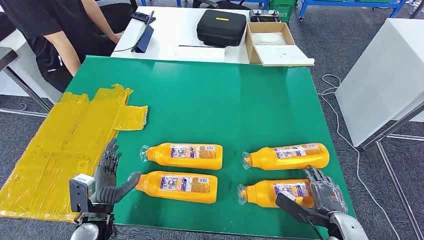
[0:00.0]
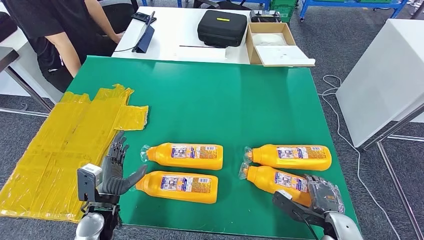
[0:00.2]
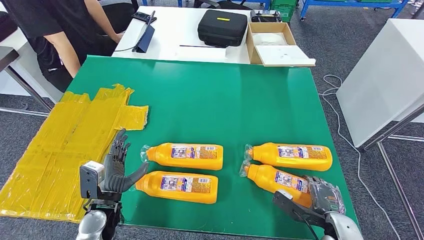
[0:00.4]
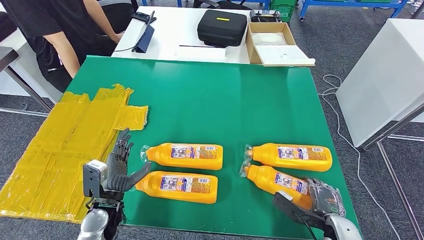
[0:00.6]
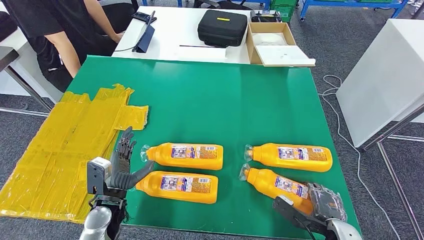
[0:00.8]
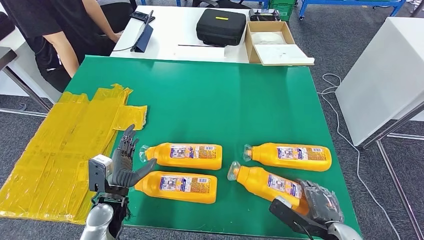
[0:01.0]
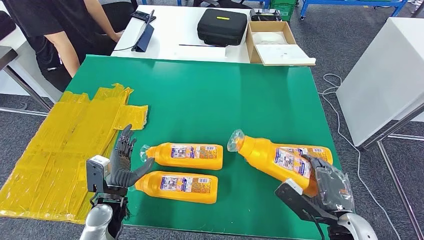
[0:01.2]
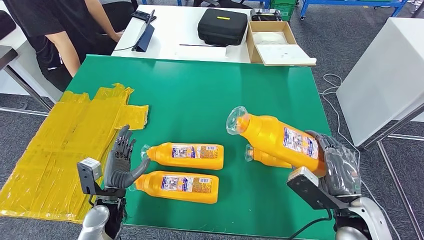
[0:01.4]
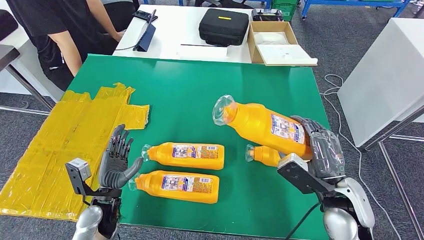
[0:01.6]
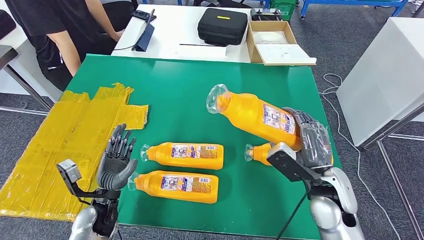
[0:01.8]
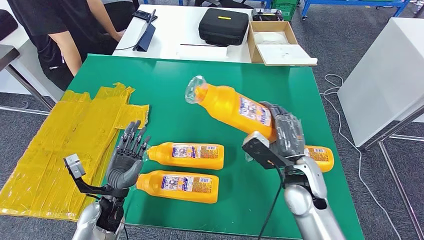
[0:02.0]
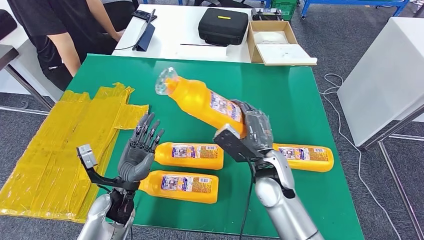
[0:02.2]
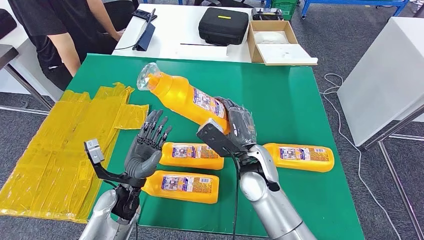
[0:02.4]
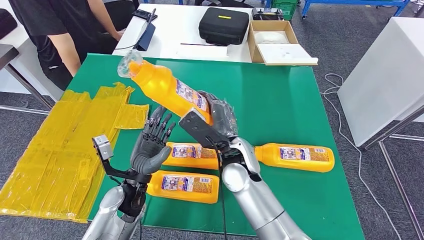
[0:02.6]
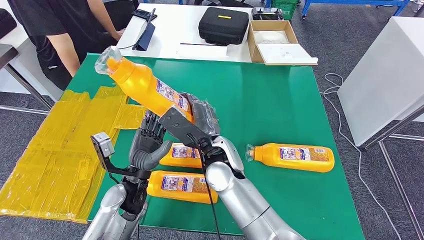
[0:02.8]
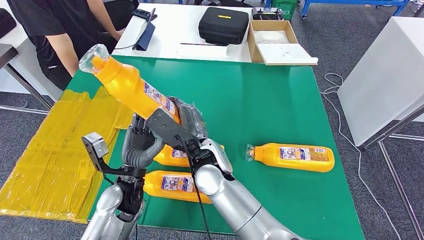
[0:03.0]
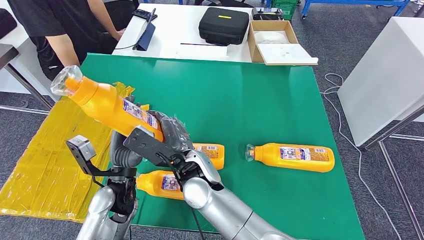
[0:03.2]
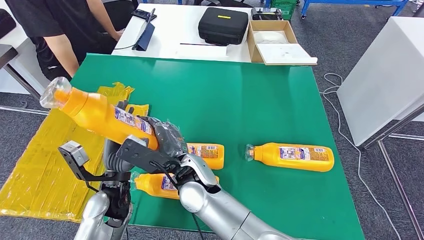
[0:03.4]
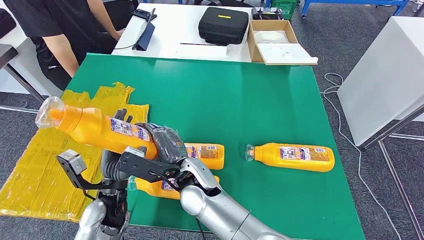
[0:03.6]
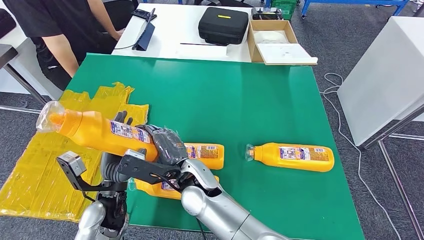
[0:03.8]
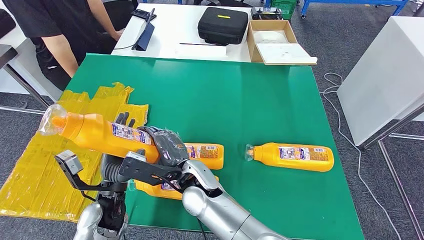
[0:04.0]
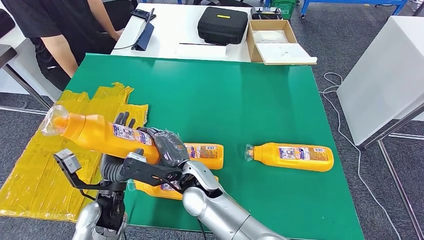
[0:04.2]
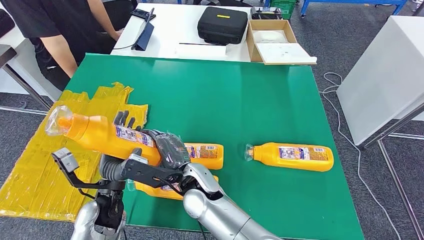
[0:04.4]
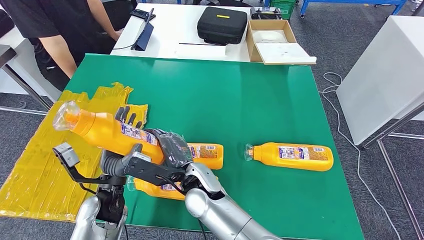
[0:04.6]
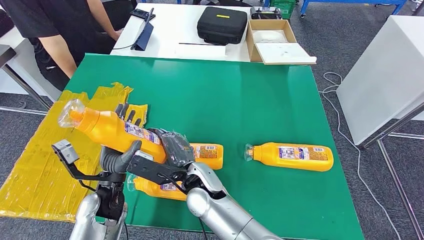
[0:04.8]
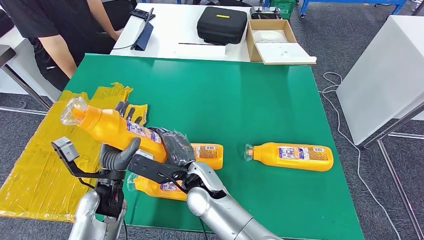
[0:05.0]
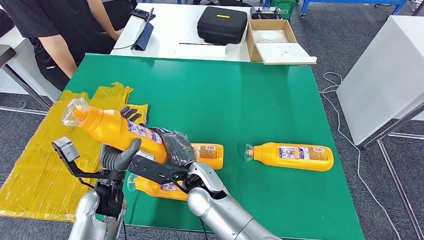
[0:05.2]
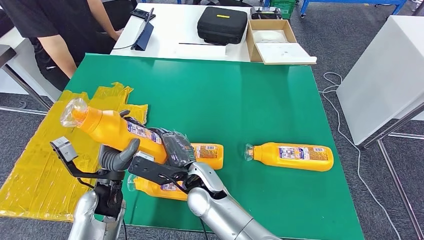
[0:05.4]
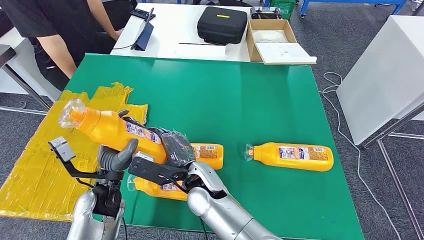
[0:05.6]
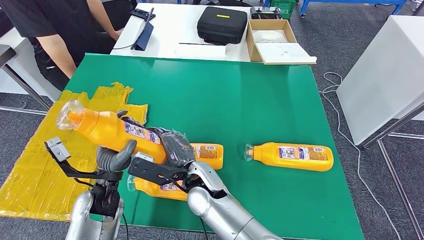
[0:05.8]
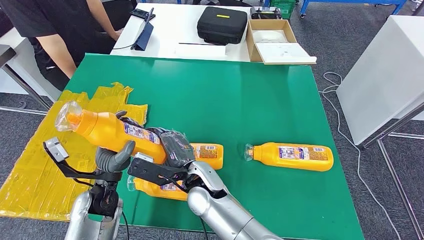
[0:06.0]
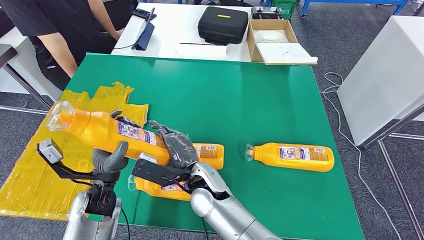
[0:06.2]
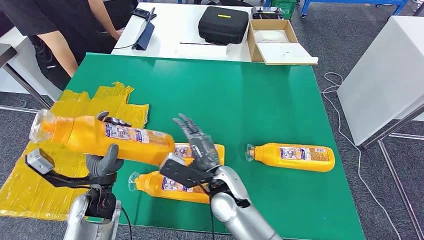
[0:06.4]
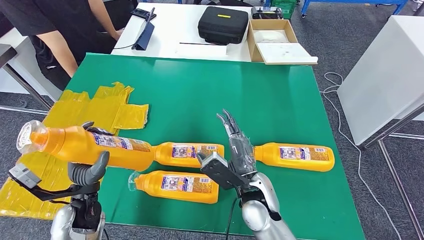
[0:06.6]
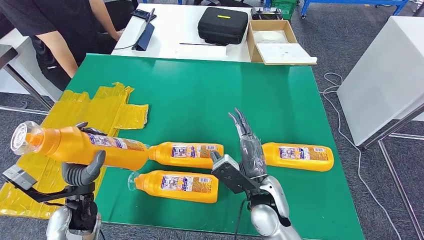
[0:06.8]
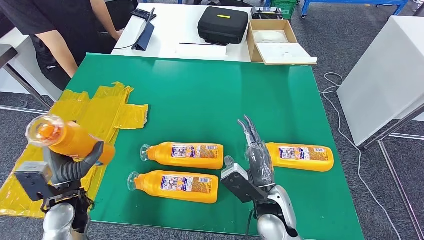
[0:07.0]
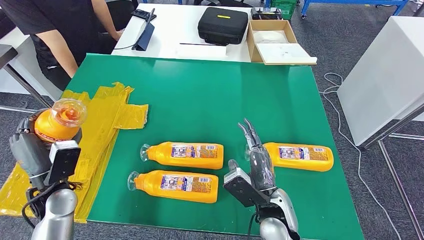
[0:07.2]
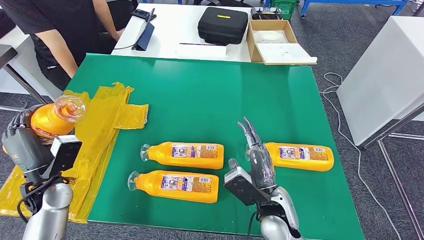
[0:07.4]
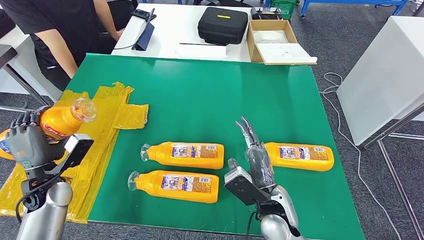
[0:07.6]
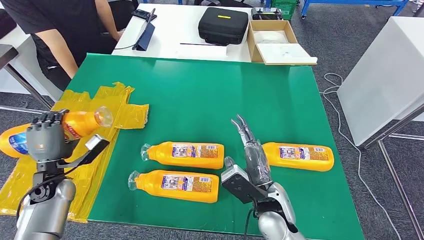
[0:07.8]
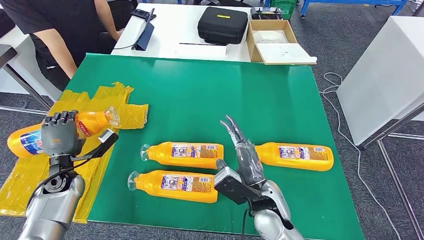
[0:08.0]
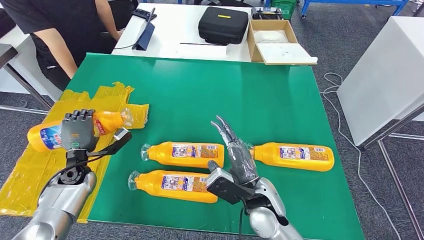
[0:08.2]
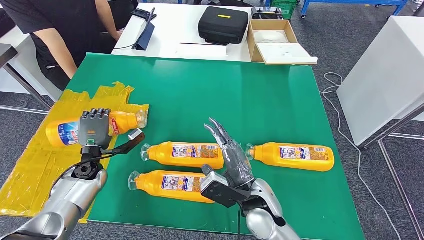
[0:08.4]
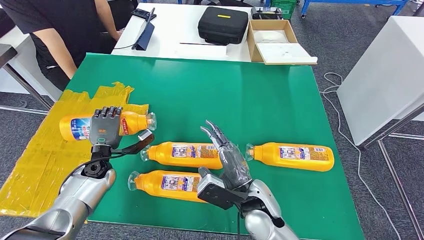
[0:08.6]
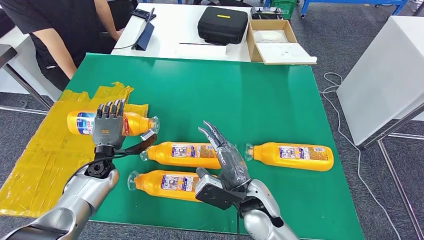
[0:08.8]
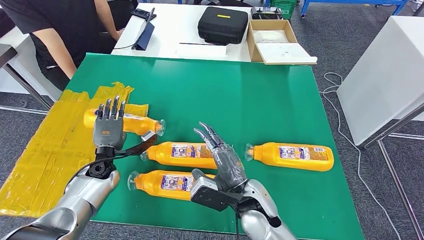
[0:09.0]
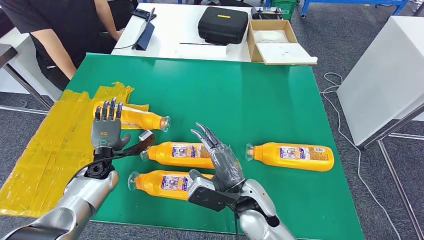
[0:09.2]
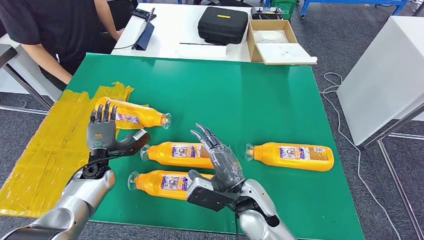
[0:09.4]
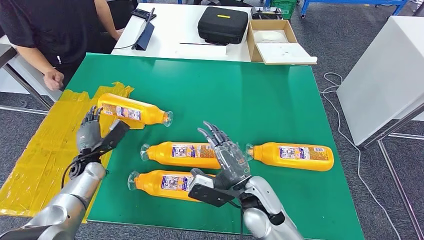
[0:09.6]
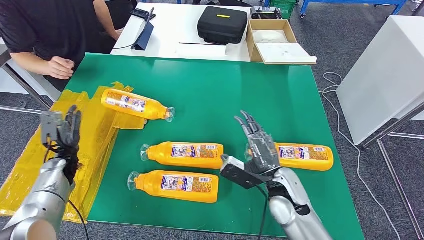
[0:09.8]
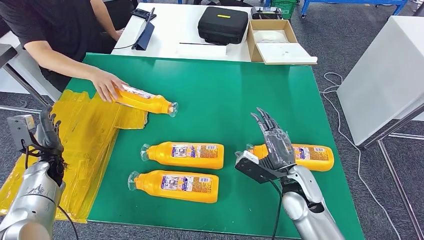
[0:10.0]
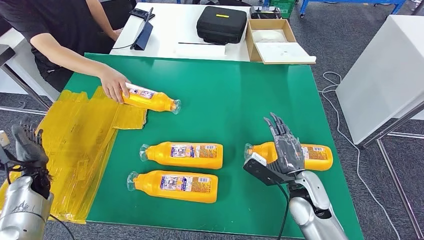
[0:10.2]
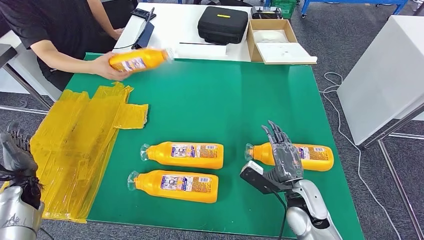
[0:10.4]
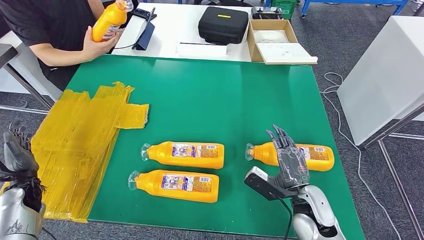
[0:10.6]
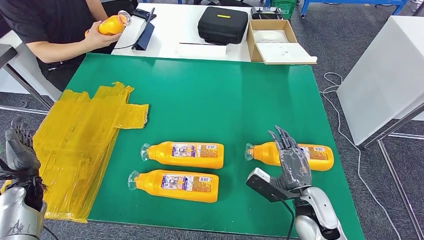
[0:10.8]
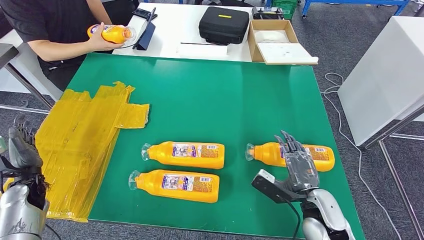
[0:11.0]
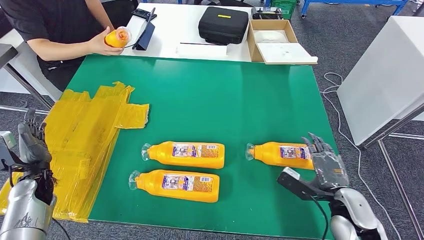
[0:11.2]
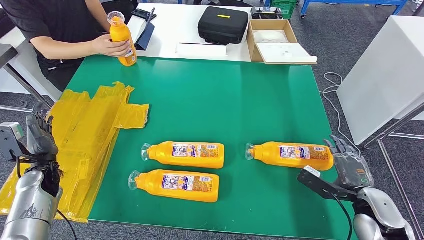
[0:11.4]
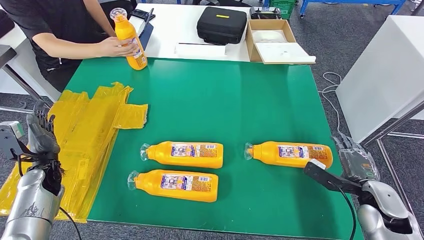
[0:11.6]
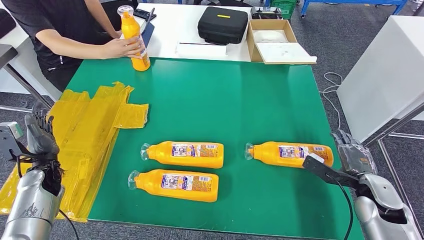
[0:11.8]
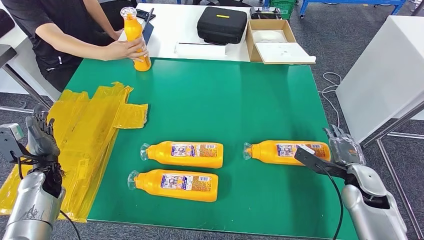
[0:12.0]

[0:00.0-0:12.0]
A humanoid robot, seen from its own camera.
Step, 0:00.0 to 0:03.8: Take the fast-moving consumer goods bottle from the table.
Step, 0:04.0 to 0:08.8: Flip the fast-moving consumer goods bottle to the front side.
0:04.4 to 0:06.0: The hands make only small movements.
0:07.6 to 0:09.0: The left hand heads to the right, forward and downward, covering some 15 cm.

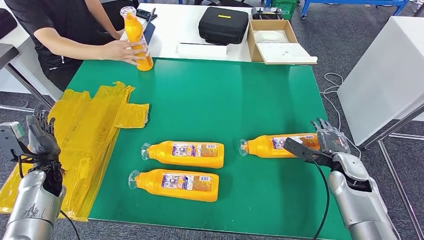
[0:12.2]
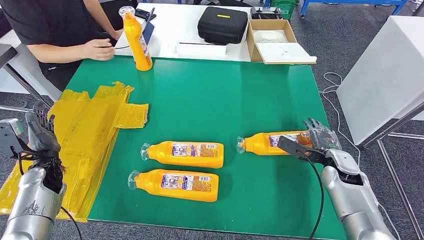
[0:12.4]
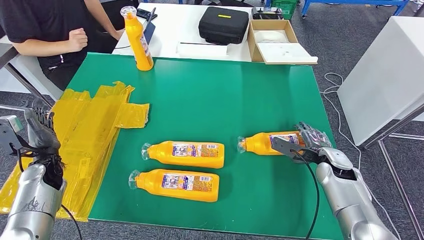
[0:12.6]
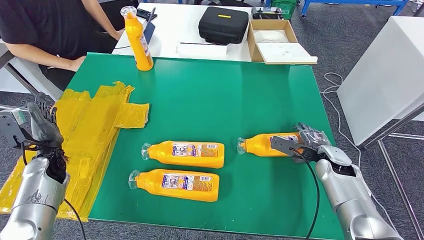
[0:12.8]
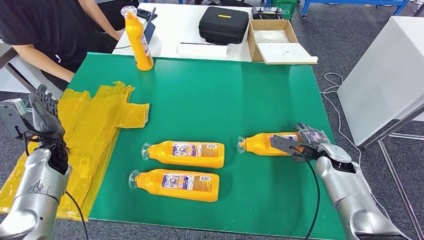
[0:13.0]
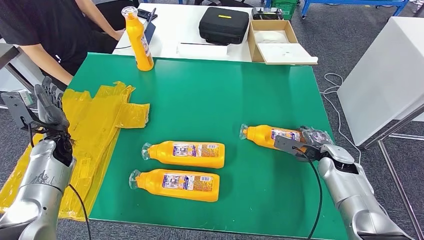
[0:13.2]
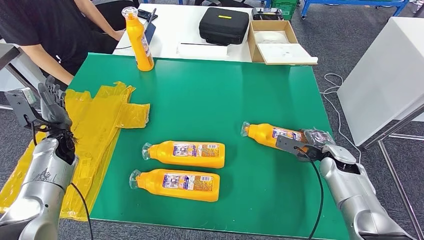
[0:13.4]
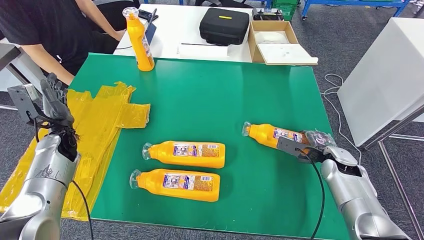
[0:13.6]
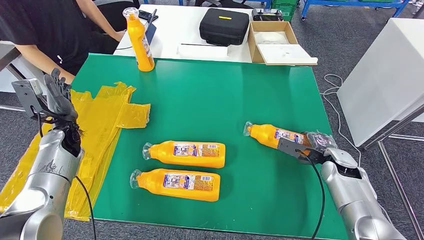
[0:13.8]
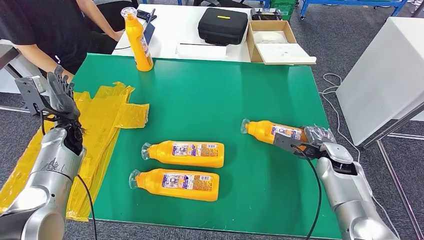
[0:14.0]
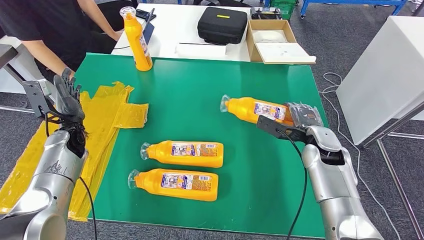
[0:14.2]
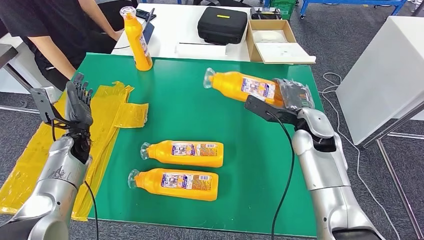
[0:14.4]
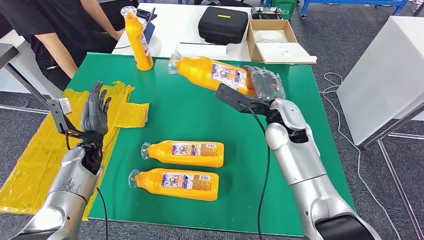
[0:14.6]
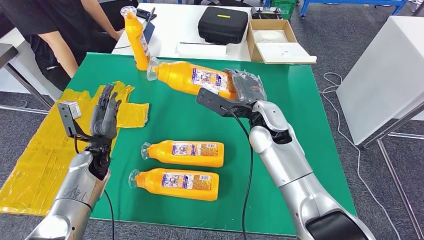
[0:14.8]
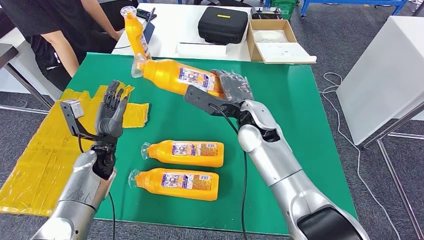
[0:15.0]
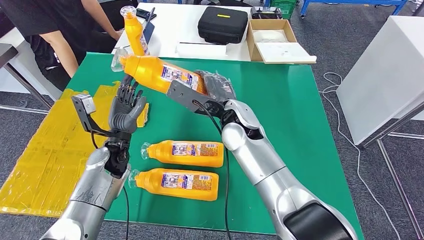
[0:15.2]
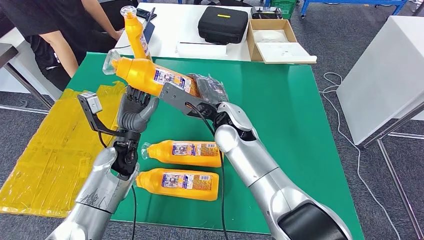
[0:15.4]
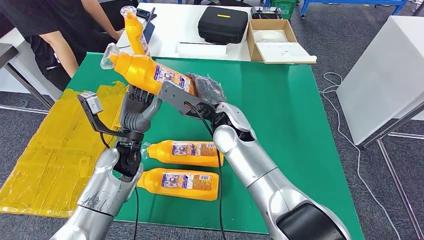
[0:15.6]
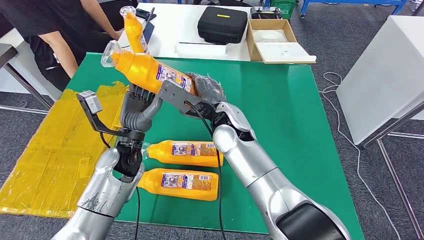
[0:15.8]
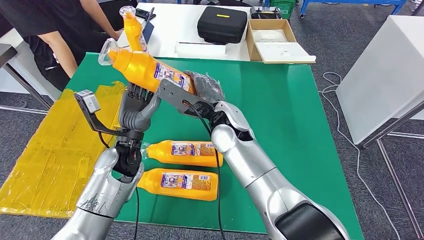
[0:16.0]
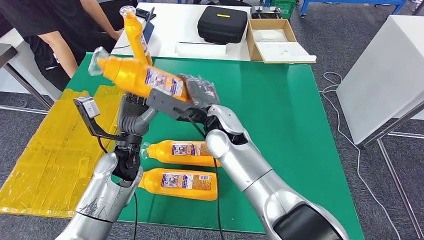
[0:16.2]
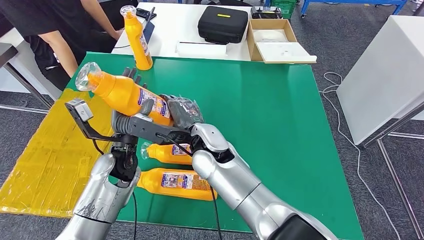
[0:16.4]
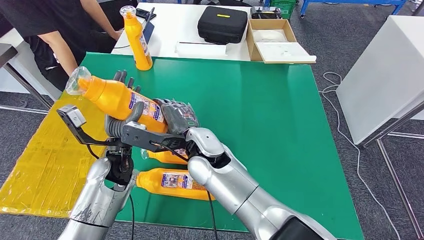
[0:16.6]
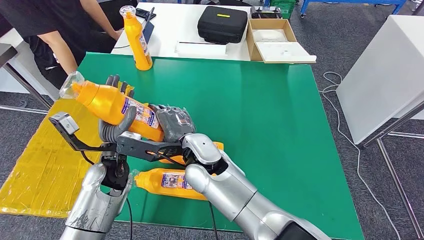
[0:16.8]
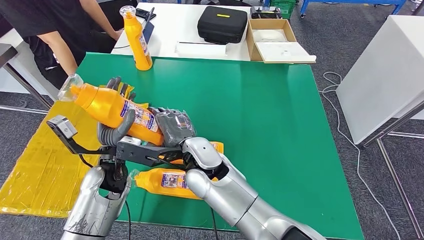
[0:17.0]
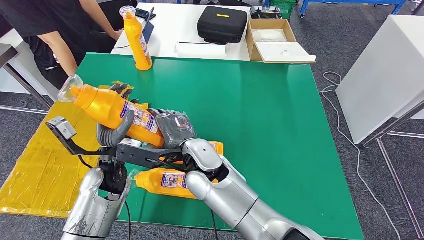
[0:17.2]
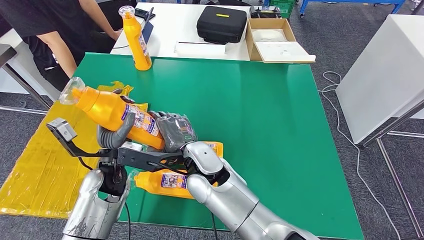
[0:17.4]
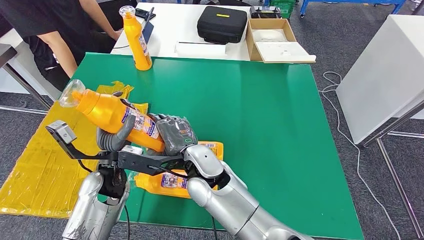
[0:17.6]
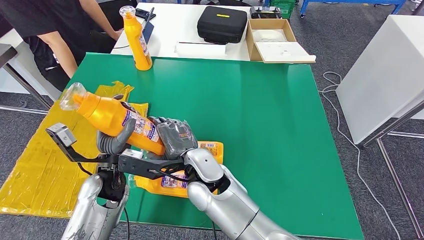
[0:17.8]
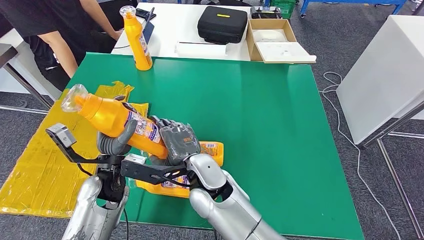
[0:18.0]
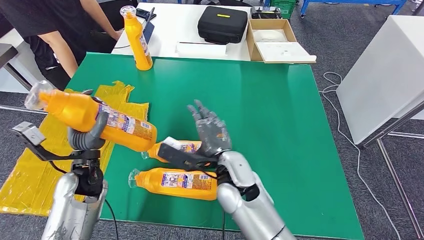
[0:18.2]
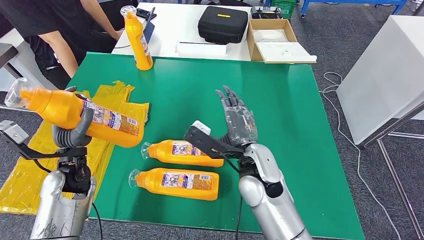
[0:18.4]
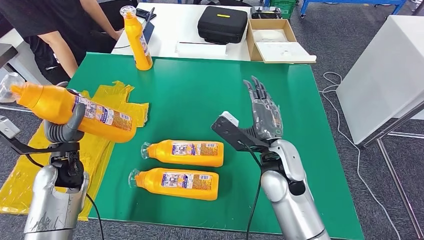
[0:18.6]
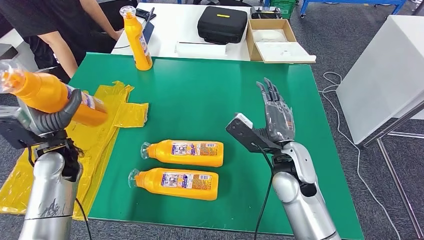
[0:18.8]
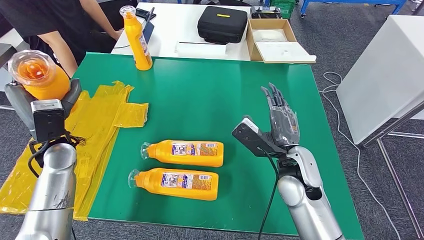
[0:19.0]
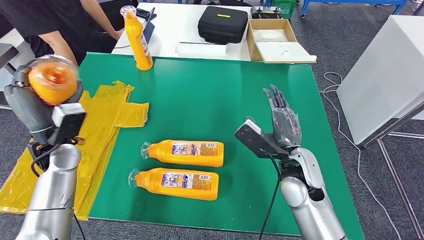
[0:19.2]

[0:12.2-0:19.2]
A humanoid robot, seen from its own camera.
Step, 0:13.0 to 0:16.4: Pick up the fast-moving consumer goods bottle from the table.
